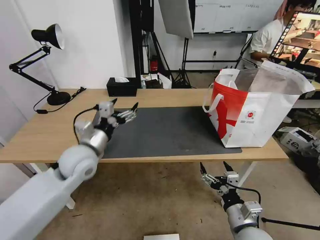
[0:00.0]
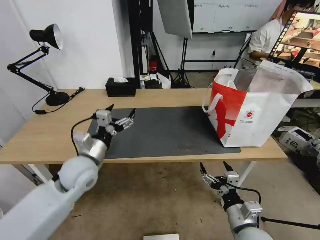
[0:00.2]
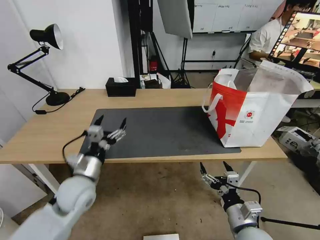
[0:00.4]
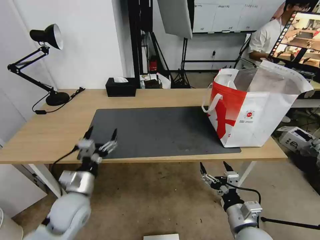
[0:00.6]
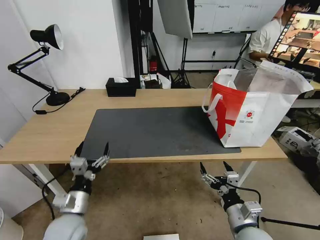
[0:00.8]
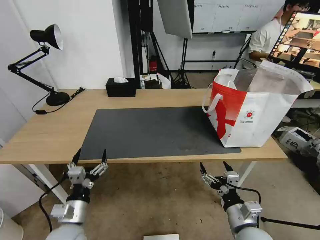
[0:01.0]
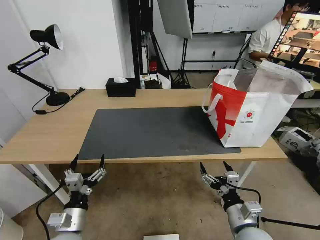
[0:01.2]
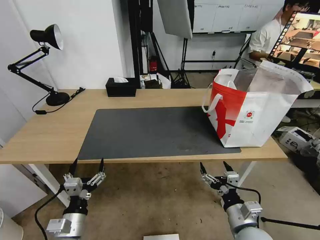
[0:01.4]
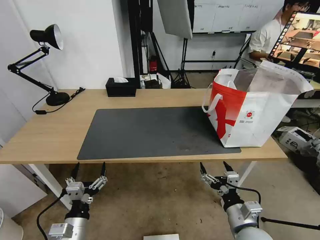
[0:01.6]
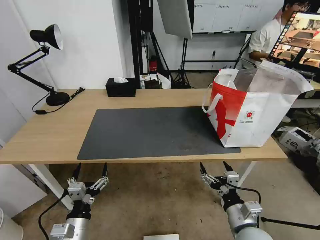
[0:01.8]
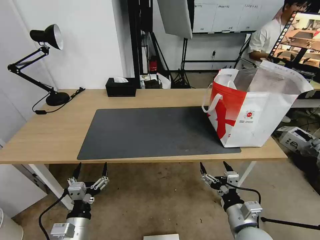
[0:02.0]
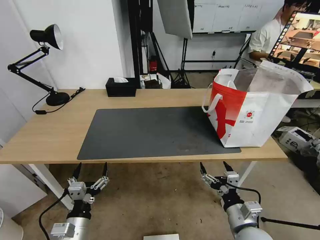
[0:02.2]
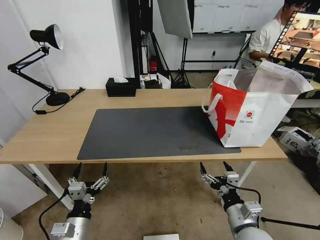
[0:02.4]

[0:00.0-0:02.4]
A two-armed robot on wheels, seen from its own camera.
Task of the whole recording: Pick up the trash from the table and place it into the takeout bag.
0:00.0 to 0:01.2: The left gripper goes about 25 cm backward and downward.
0:01.2 to 0:02.4: The grippers make only small movements.

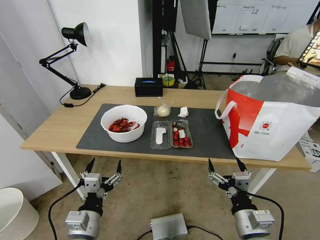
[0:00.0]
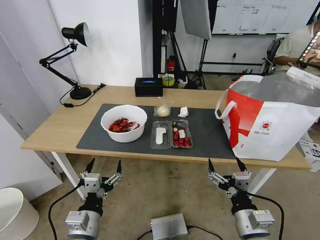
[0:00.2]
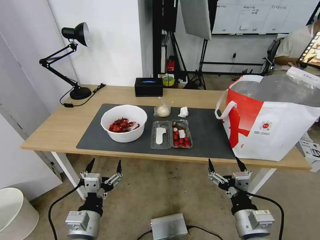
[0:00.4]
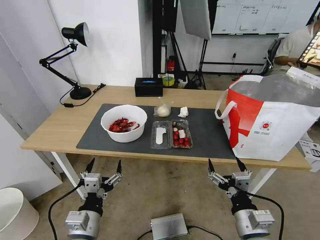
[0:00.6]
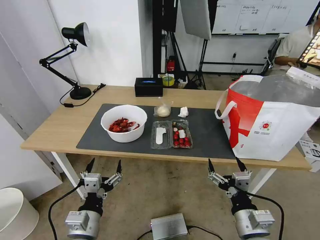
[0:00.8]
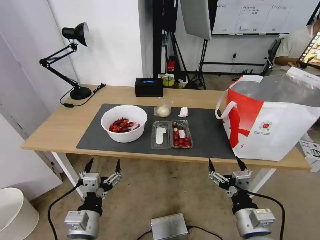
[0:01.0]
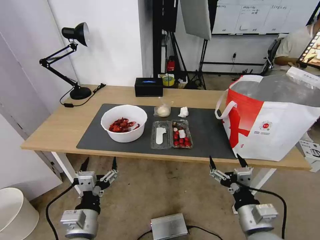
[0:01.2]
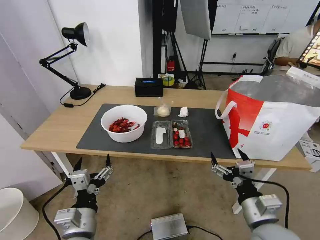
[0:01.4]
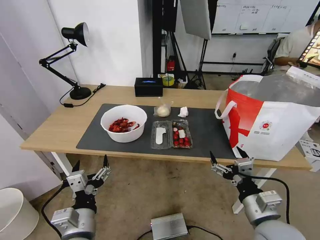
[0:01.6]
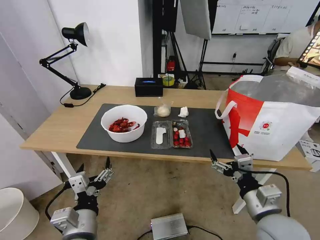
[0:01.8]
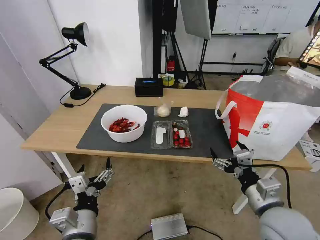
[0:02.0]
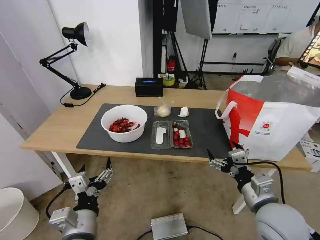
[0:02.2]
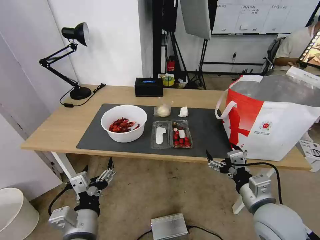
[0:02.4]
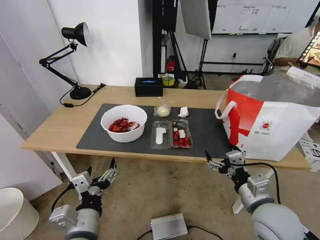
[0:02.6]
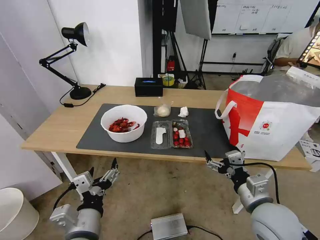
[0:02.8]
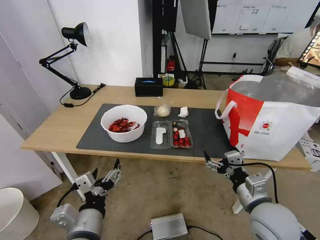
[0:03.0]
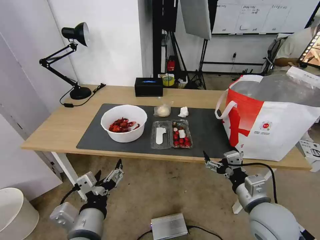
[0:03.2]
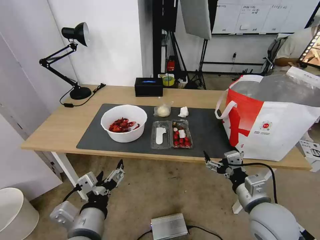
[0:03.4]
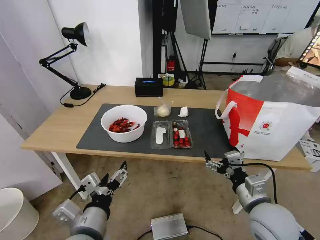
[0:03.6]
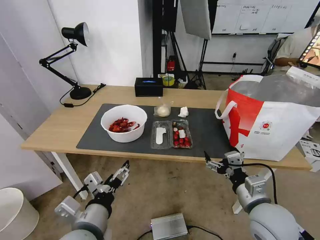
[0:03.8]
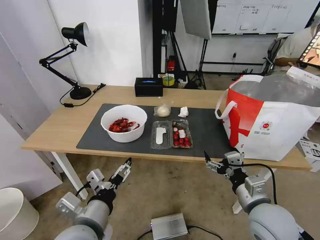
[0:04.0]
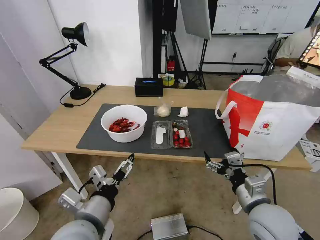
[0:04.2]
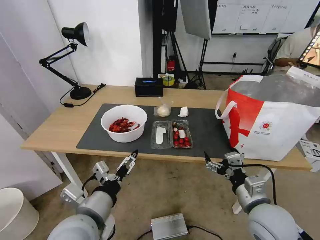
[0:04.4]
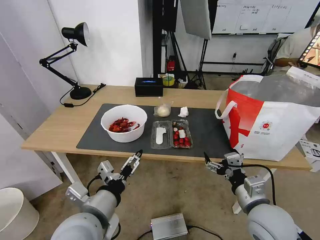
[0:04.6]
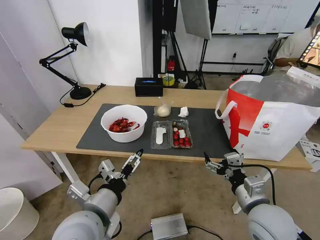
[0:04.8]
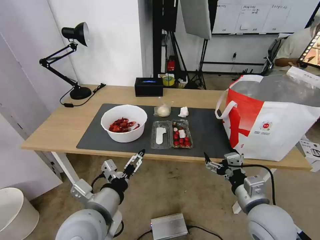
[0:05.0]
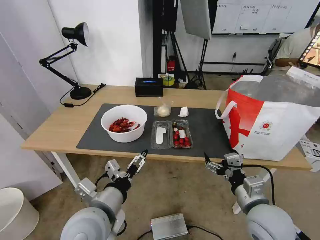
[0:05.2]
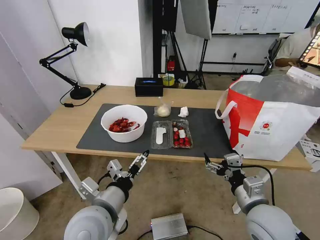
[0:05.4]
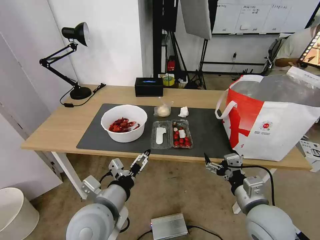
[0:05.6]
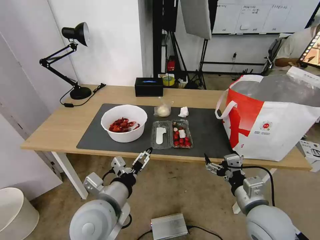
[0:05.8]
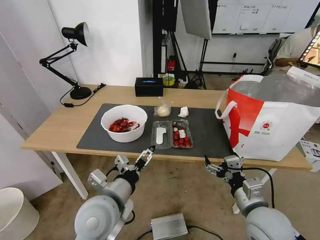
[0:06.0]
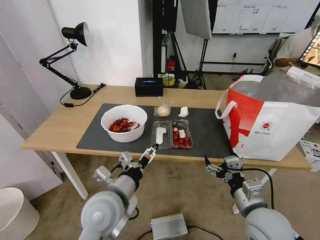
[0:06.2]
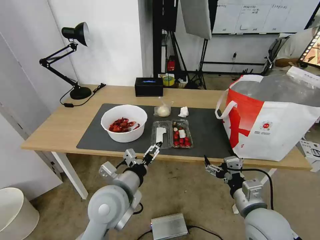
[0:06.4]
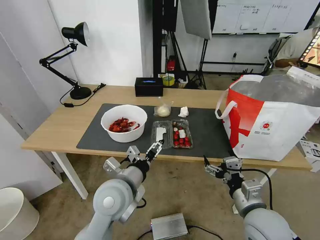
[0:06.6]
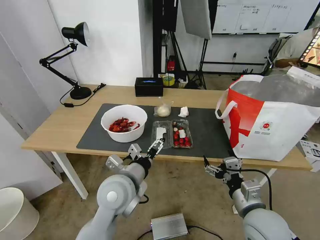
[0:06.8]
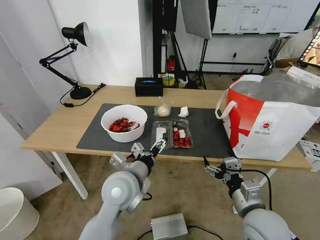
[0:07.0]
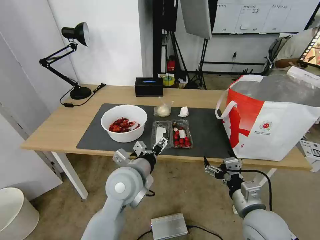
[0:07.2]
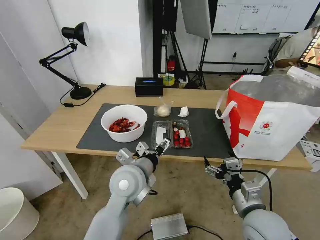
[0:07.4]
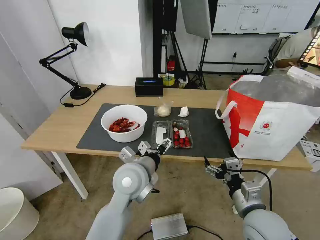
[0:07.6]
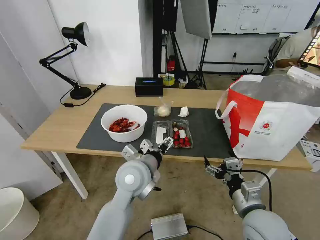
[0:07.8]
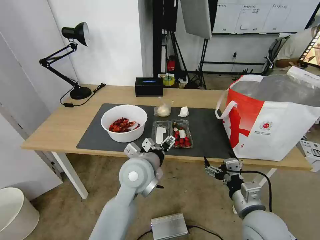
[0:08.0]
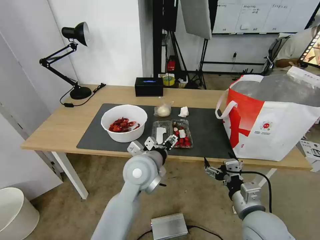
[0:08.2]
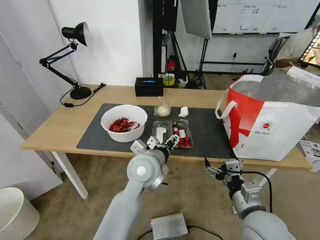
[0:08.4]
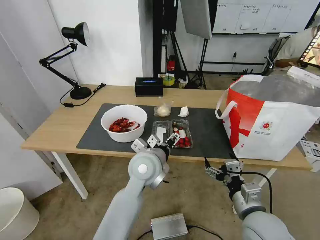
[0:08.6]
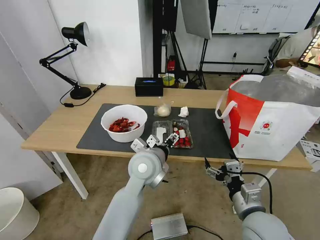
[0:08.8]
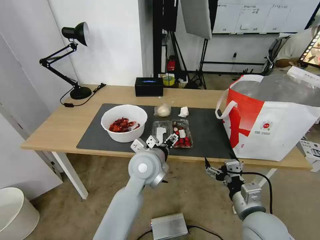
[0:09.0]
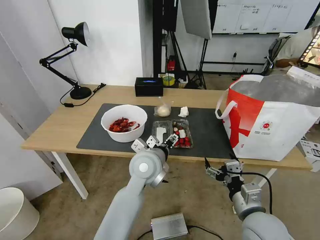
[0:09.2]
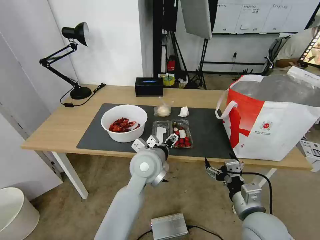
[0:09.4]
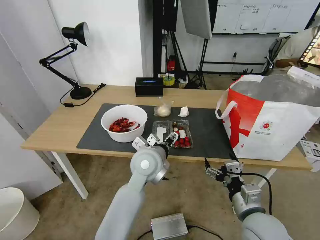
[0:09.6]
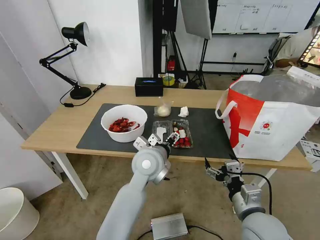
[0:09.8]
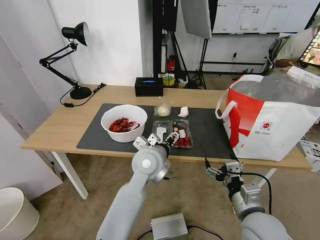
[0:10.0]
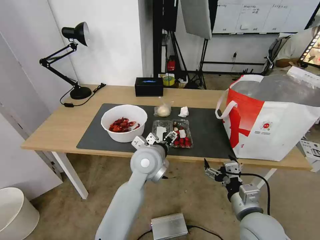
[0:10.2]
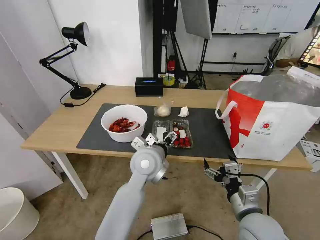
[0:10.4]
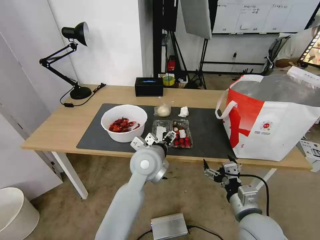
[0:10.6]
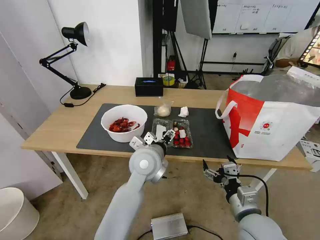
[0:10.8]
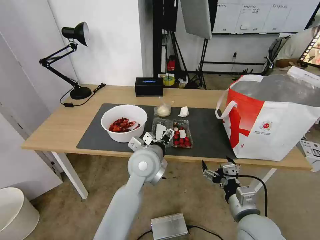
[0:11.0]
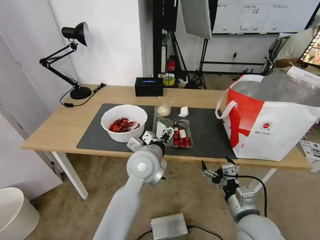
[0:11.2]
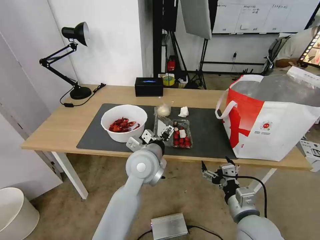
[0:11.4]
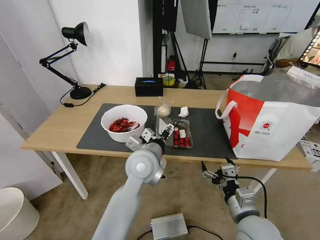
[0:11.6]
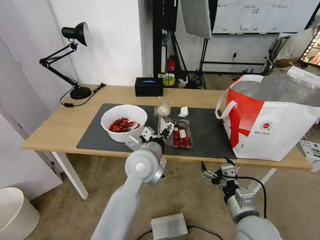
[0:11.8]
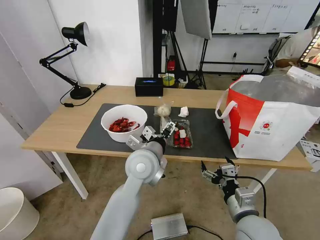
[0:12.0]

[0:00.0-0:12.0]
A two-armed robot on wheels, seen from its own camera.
Task of the whole recording: Pick up the trash from the table and place it into the takeout bag.
0:03.0 to 0:04.4: The left gripper shifts by about 5 cm.
0:04.4 to 0:06.0: The left gripper shifts by some 5 cm.
0:06.0 to 0:07.6: The left gripper heads forward and to the right, covering approximately 10 cm.
0:07.6 to 0:09.0: The left gripper shifts by some 5 cm.
0:09.0 to 0:12.0: The grippers stay close to where they were, moving slightly.

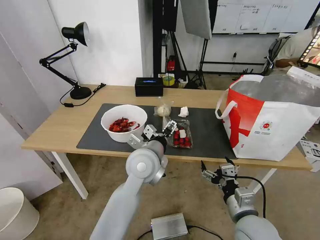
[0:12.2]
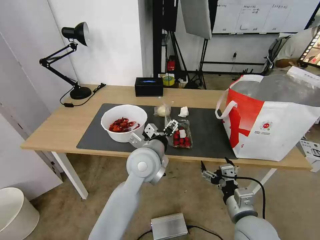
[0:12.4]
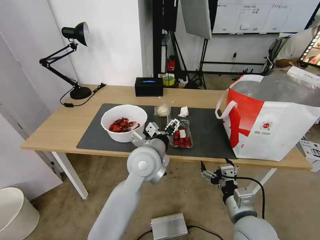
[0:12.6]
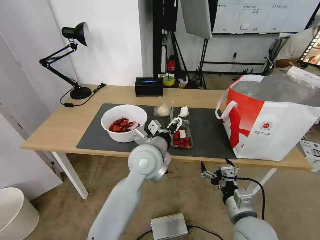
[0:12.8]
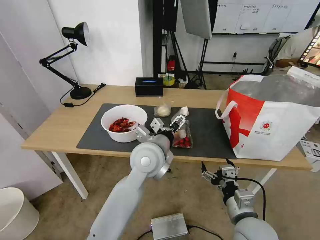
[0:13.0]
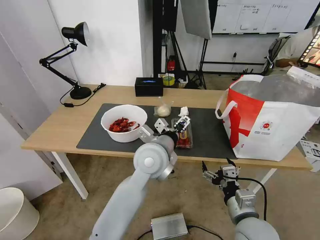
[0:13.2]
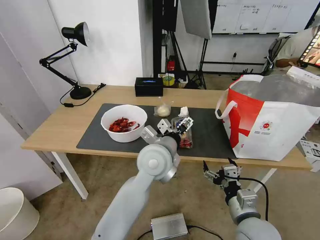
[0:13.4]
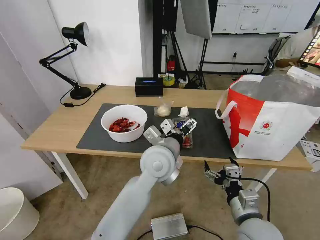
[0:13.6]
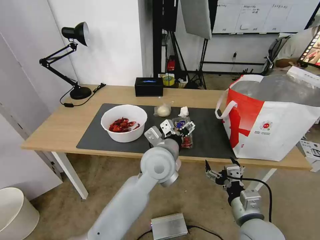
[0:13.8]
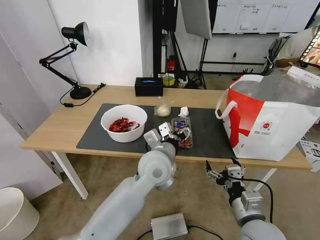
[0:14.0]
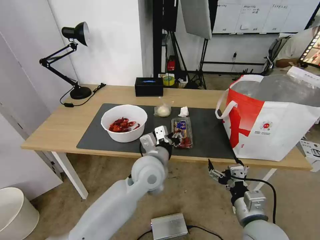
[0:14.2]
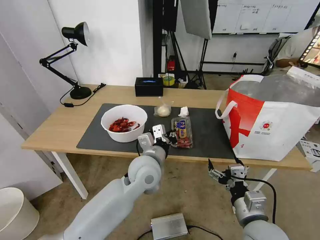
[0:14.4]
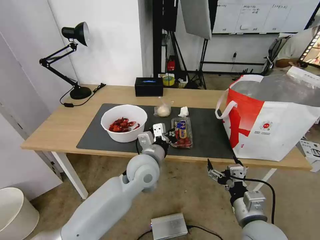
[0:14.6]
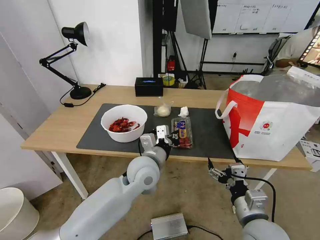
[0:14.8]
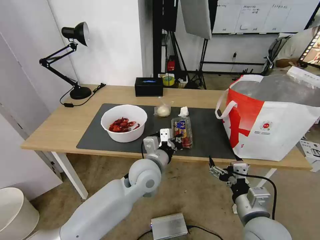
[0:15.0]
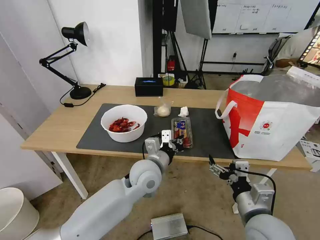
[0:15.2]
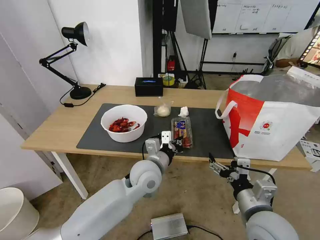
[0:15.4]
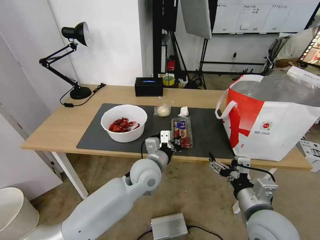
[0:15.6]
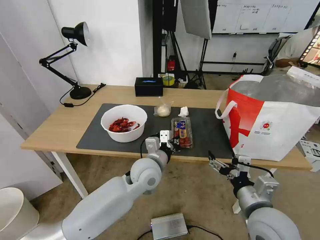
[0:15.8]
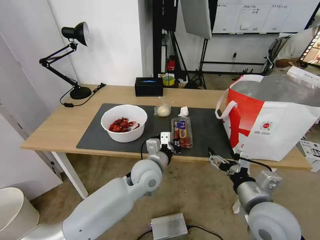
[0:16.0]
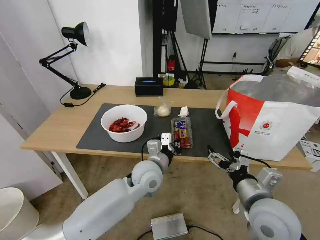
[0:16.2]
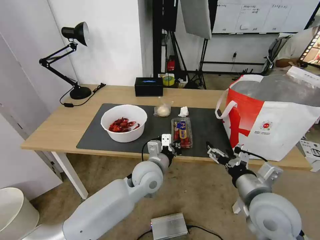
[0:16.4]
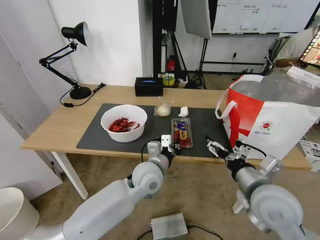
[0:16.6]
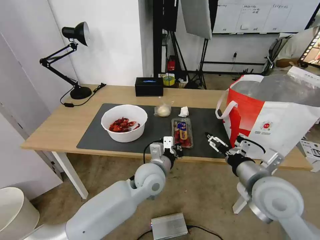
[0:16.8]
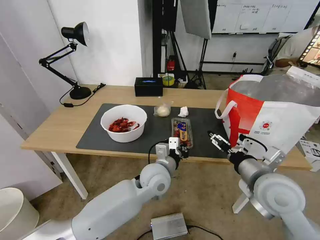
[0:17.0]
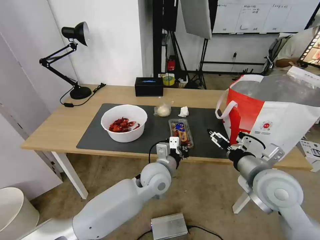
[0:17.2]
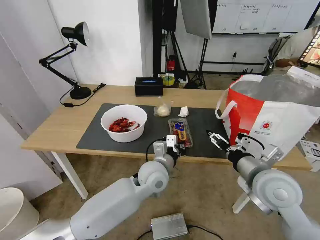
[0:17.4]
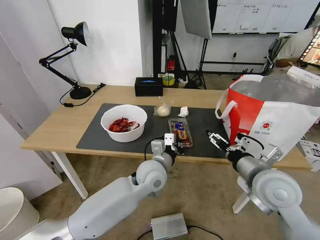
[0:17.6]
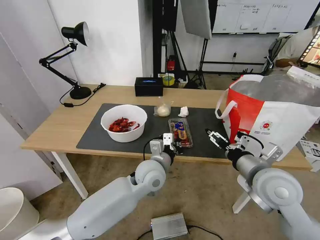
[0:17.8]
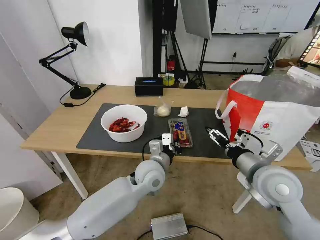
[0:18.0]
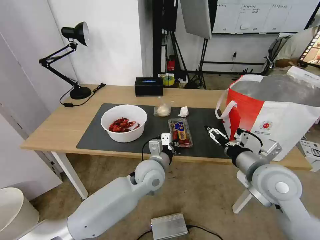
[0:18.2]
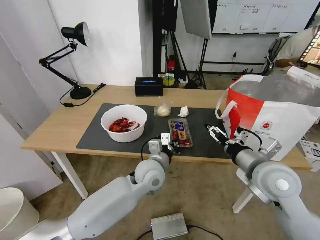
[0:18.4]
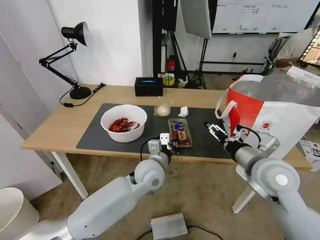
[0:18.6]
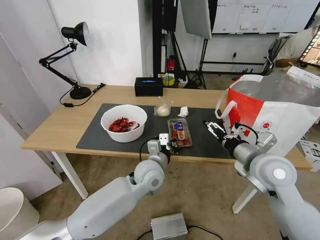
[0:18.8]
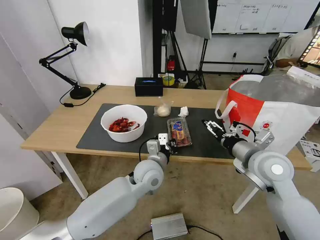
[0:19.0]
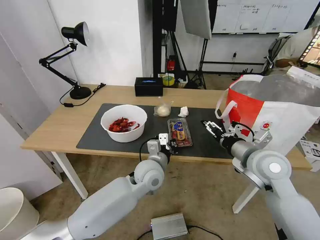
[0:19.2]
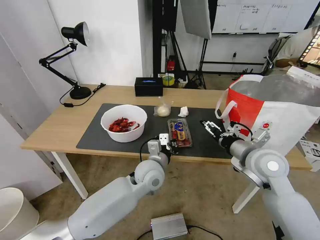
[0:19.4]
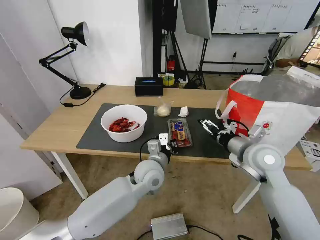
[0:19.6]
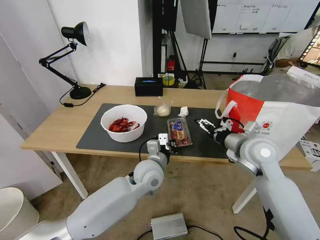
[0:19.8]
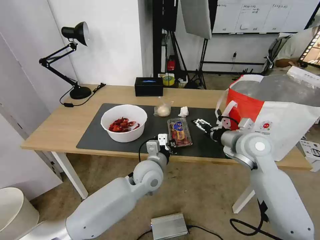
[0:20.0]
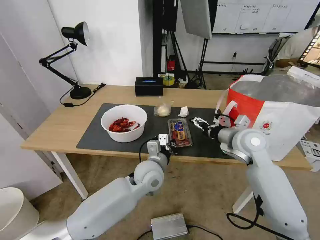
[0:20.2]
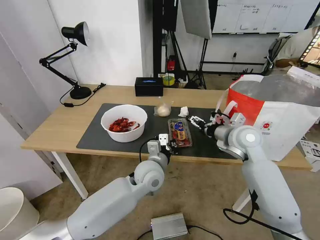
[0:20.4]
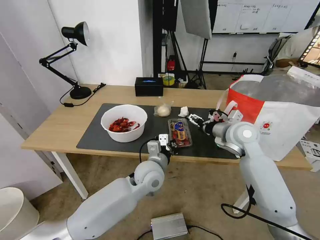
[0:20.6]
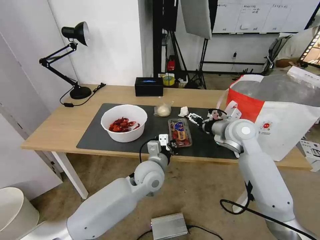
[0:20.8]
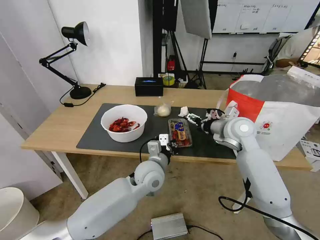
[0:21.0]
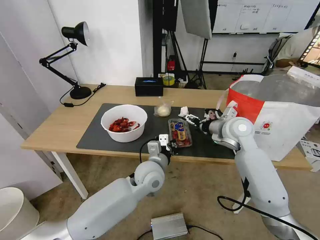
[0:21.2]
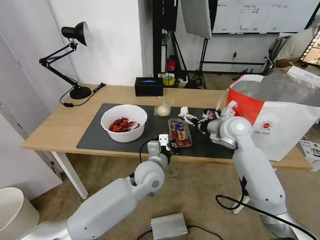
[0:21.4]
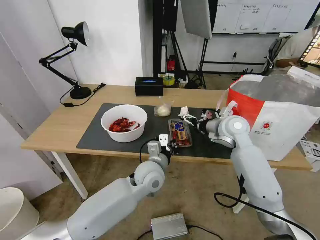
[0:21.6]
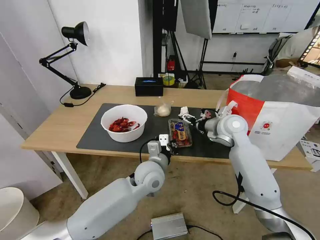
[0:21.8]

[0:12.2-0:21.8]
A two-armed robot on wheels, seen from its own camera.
Task of the whole recording: Pick up the trash from the table and place it into the takeout bag.
0:12.2 to 0:13.8: The grippers make only small movements.
0:13.8 to 0:15.4: The left gripper shifts approximately 5 cm downward, and closes.
0:15.4 to 0:17.0: The right gripper moves forward and upward, approximately 10 cm.
0:17.0 to 0:18.6: The grippers make only small movements.
0:18.6 to 0:20.2: The right gripper travels forward by about 10 cm.
0:20.2 to 0:21.8: The right gripper moves forward, about 5 cm.
